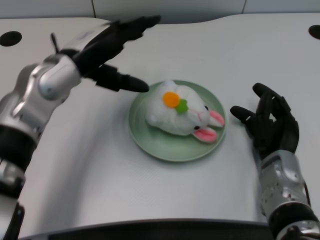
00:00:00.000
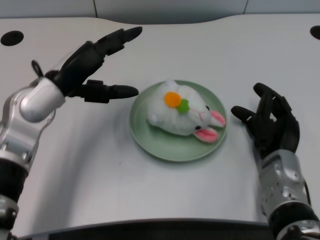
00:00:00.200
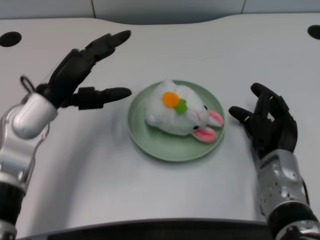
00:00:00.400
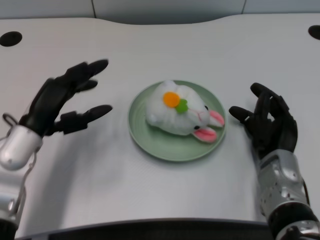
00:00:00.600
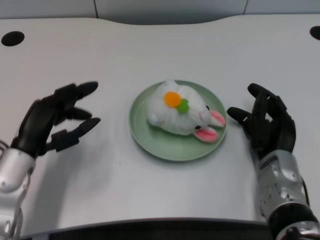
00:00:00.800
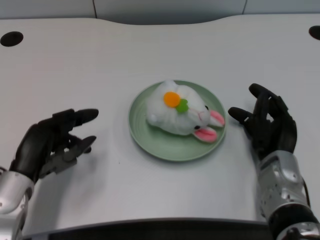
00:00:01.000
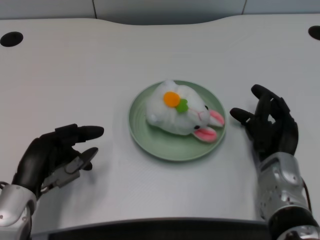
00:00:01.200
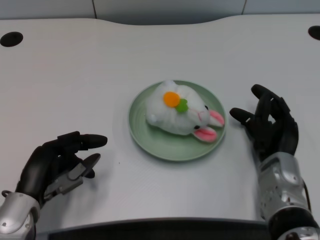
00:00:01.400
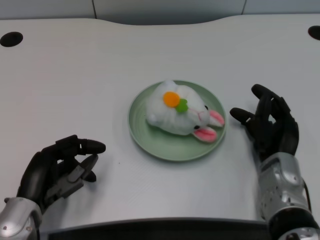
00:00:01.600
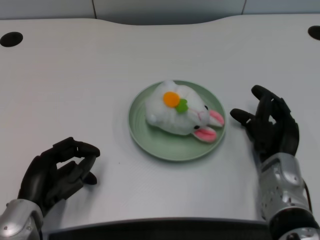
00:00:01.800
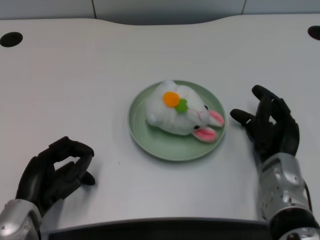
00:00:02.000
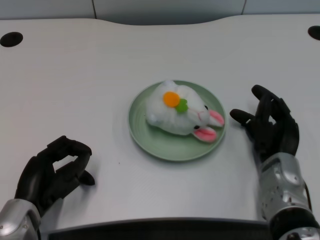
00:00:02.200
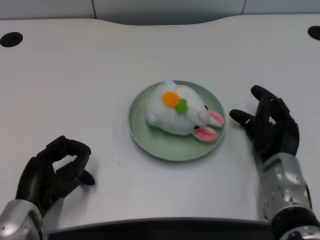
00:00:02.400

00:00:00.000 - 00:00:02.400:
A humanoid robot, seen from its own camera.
Task of the whole recording: pick up the rabbit doll from the table and place it on the plate.
00:00:00.000 - 00:00:01.200: The left hand is displaced backward and downward by roughly 15 cm.
00:00:01.200 - 00:00:02.400: The hands move only a little.
